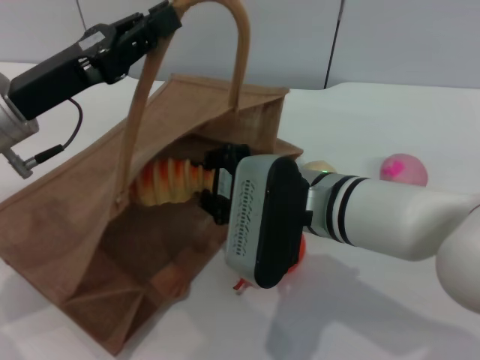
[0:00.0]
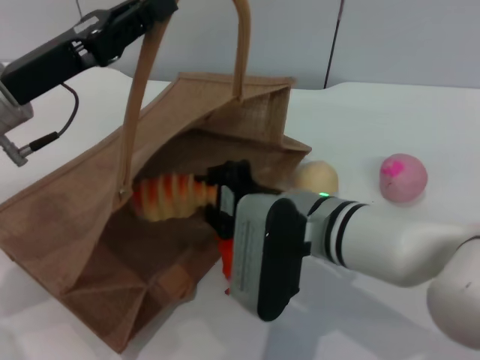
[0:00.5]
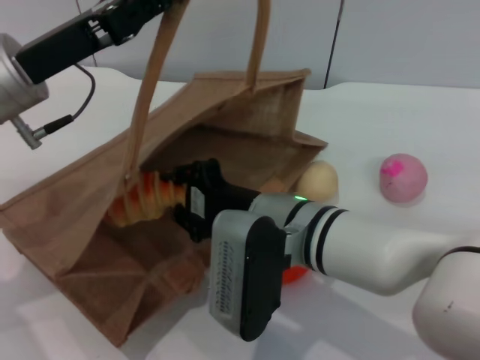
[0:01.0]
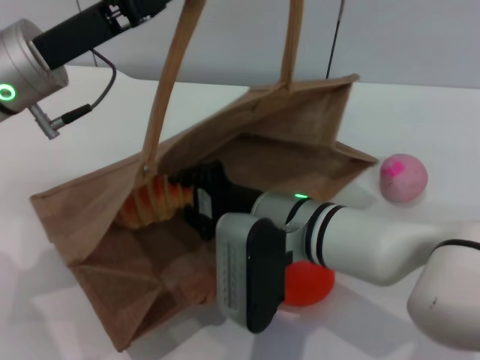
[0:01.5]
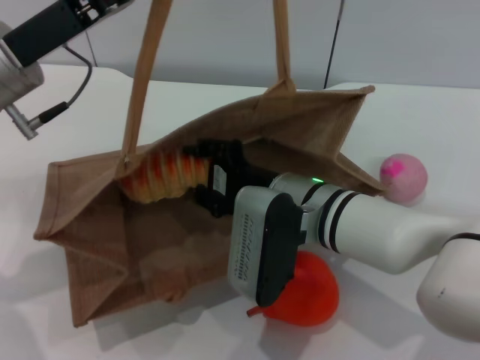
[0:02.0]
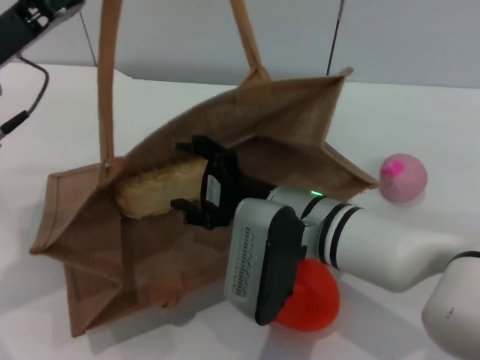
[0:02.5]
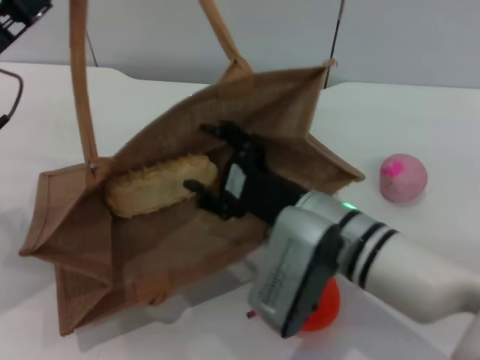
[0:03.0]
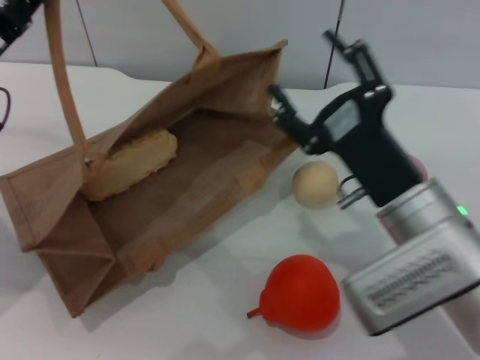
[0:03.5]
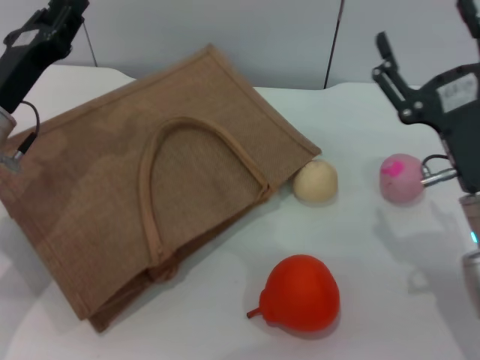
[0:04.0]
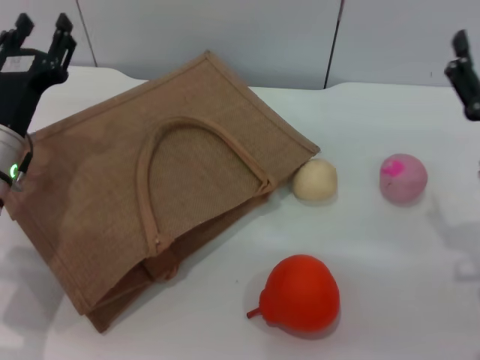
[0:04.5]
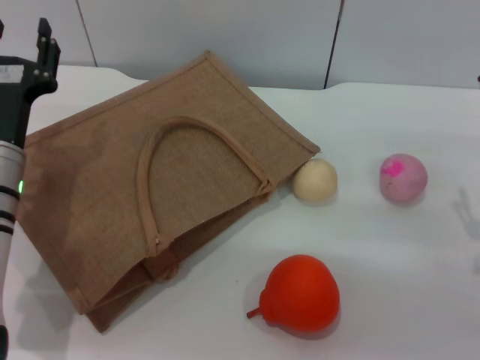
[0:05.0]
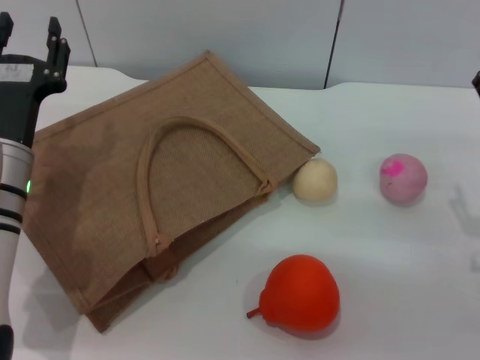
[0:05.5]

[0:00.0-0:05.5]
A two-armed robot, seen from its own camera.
Task of the whole recording: pick up the bread from the table and place it in the brown handbag.
Step, 0:00.0 to 0:02.5: Place the bread into the woven bag with the right gripper.
Step, 0:03.0 to 0:04.0: Lower the woven bag with the left gripper to close it.
0:02.0 to 0:03.5: The right gripper is displaced to the right and backward by approximately 10 cm, and opens up; the left gripper goes roughly 5 cm to the left.
0:03.5 to 0:05.5: The left gripper goes roughly 10 cm to the right and downward, and opens, while the right gripper moves to the right, about 10 cm.
